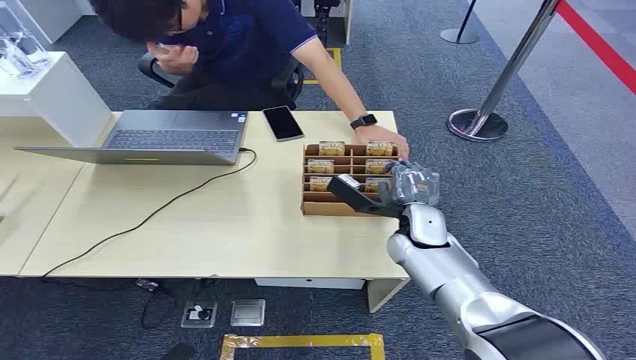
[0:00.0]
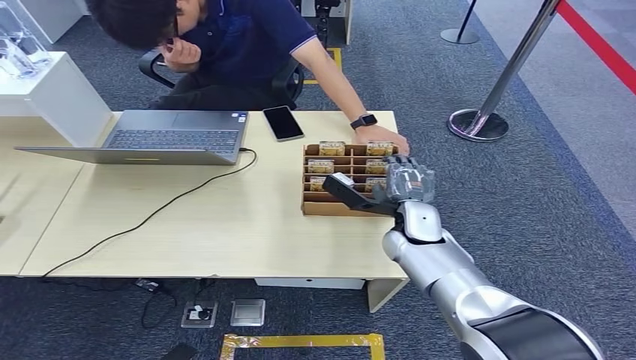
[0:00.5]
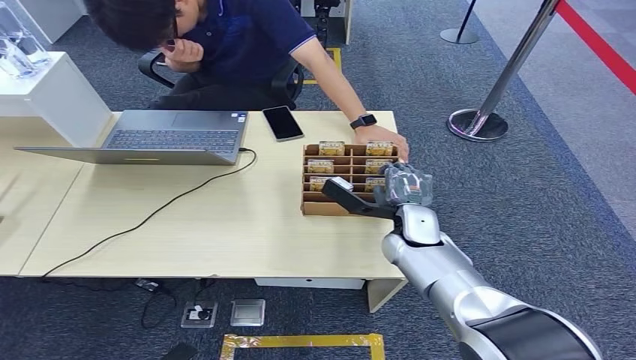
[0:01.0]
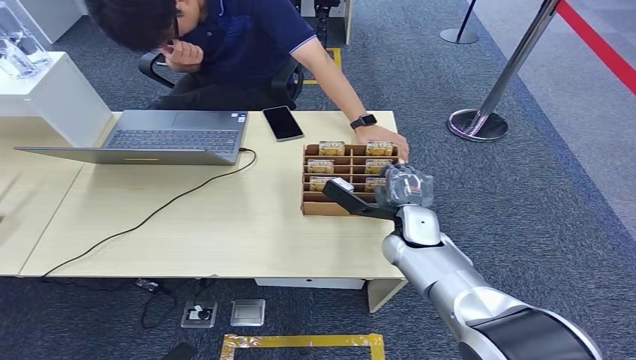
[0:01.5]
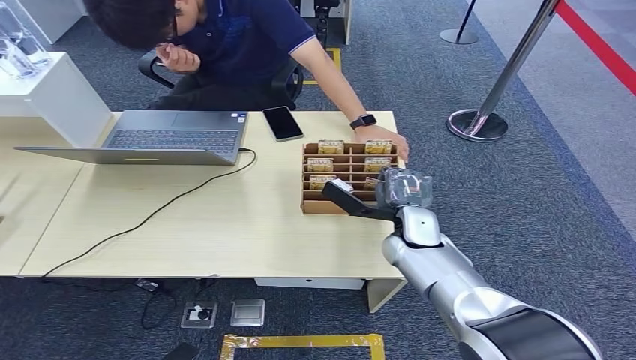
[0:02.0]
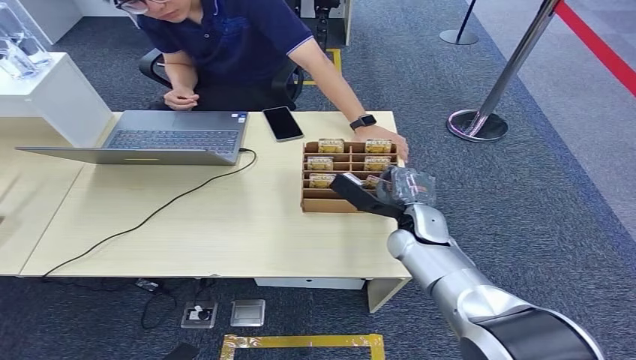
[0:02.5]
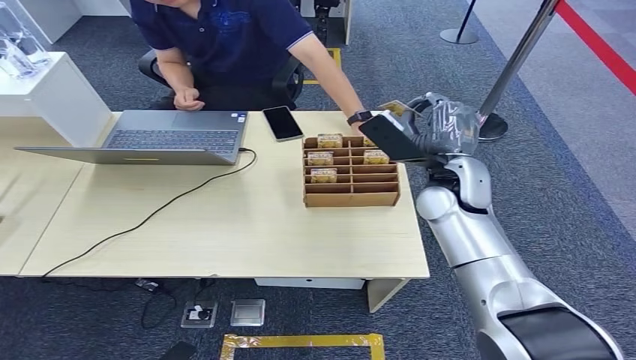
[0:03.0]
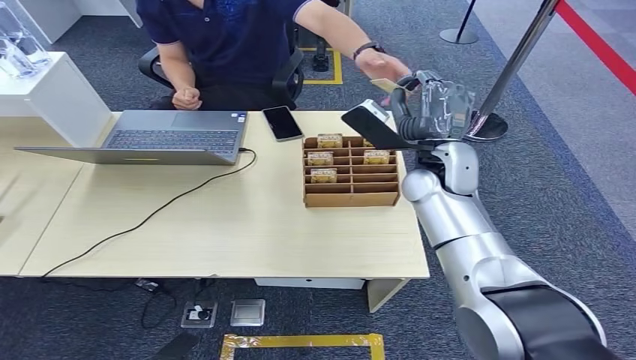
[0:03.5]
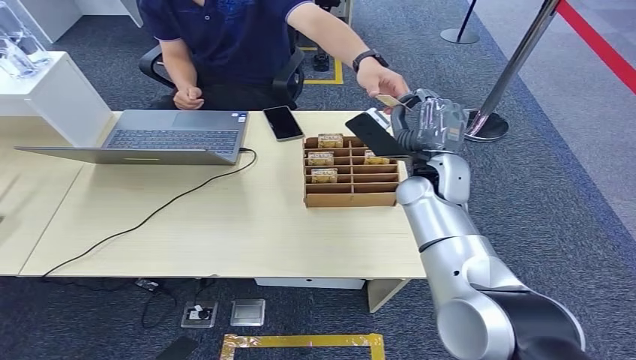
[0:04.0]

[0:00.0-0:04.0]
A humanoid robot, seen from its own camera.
Step, 0:00.0 to 0:02.5: Pick up the room card from the card holder.
Step, 0:03.0 to 0:04.0: Hand the room card to the target.
0:02.0 to 0:04.0: The right hand shifts roughly 10 cm upward and forward.
